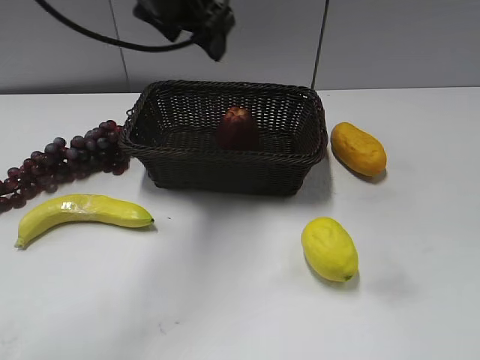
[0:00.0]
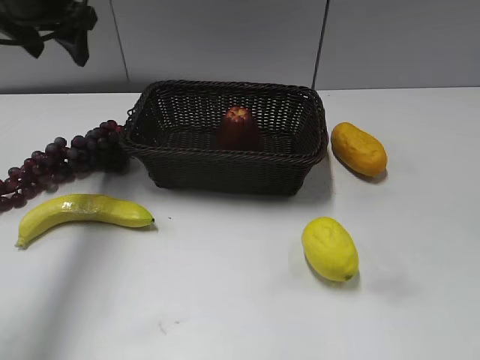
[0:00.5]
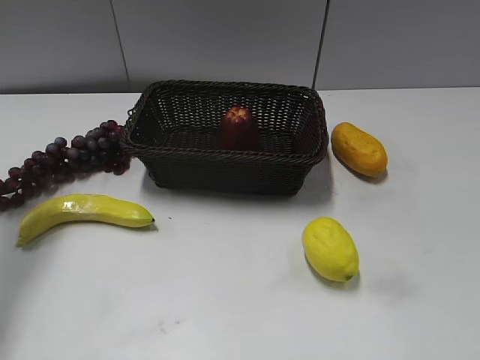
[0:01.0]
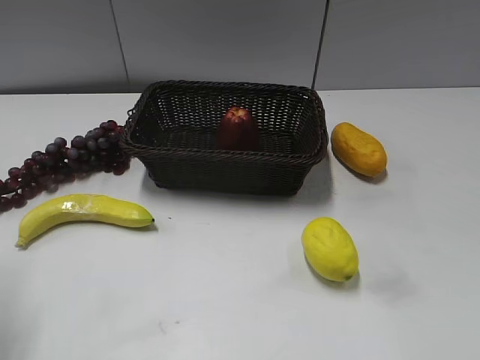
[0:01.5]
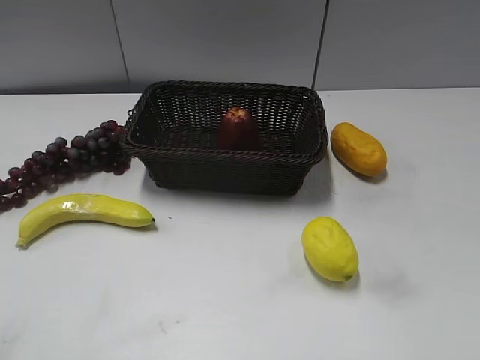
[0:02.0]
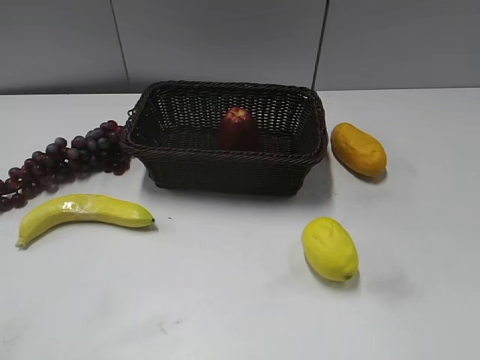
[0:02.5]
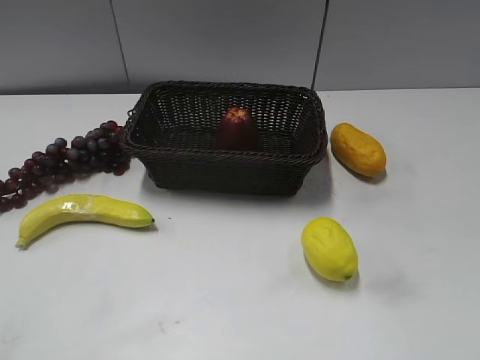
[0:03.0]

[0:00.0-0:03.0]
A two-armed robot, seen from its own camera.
0:00.0 to 0:01.5: The left gripper goes approximately 35 cm to the left and backward, and closes up.
0:01.5 to 0:03.0: The left gripper is displaced backward by approximately 20 cm, and closes its fingers.

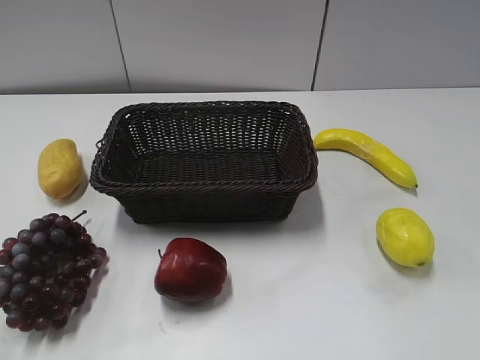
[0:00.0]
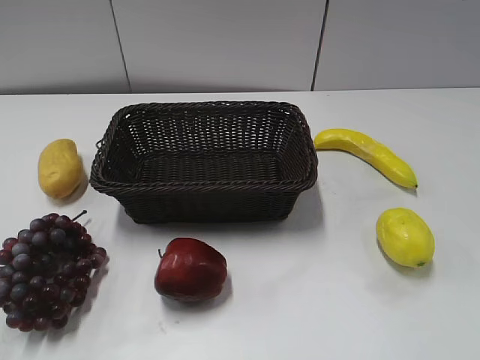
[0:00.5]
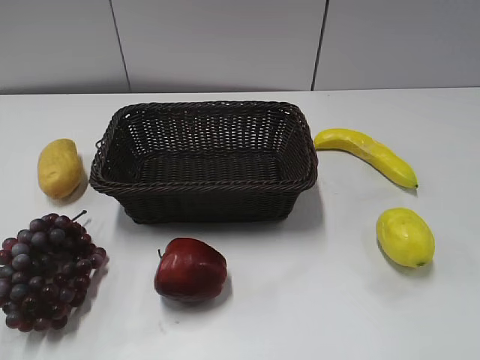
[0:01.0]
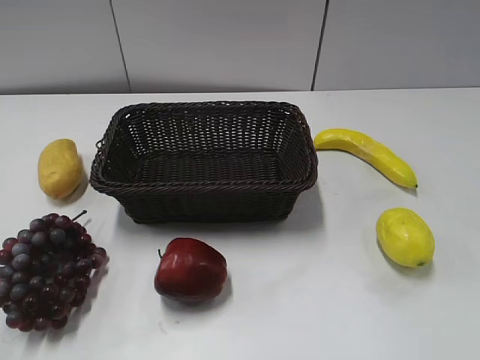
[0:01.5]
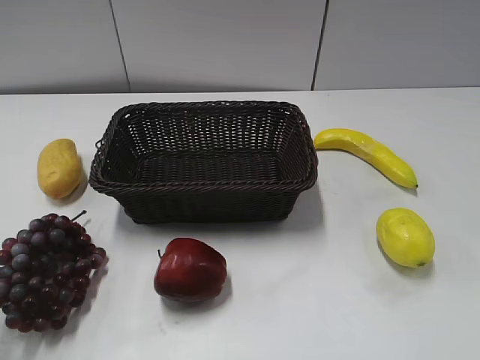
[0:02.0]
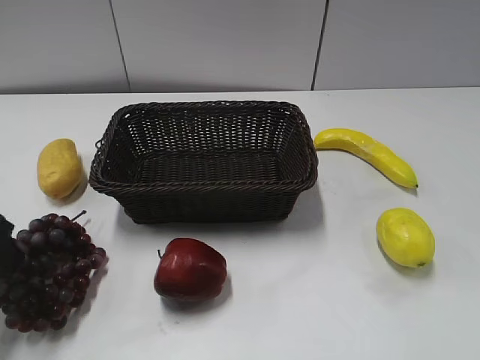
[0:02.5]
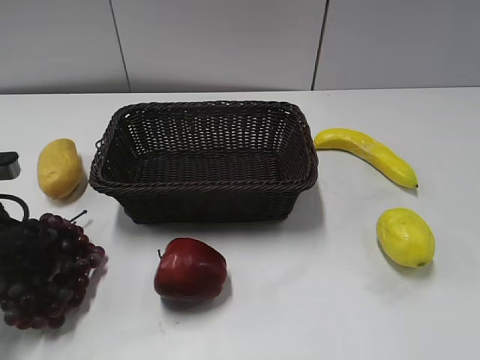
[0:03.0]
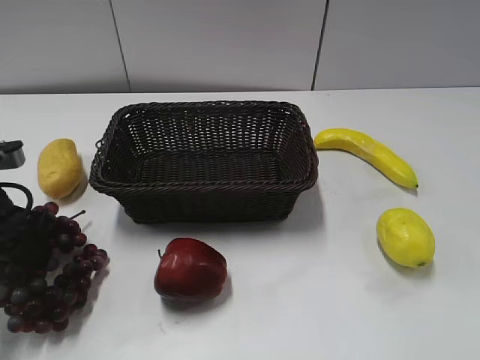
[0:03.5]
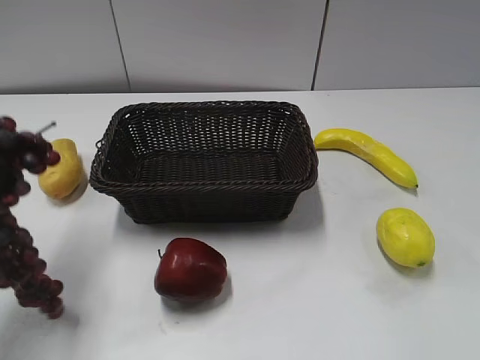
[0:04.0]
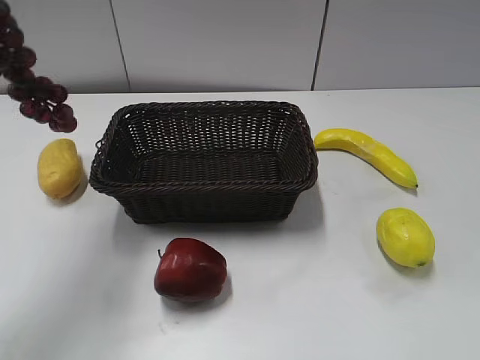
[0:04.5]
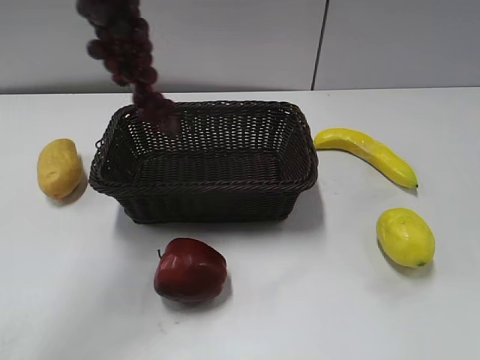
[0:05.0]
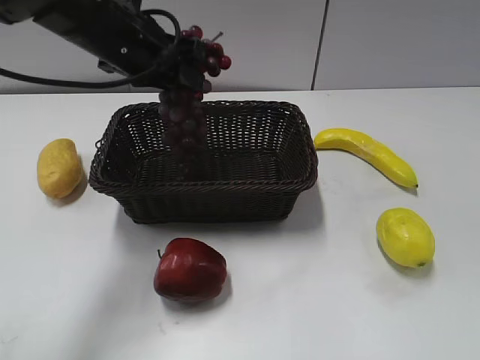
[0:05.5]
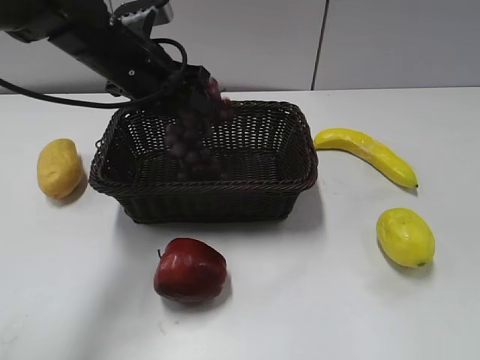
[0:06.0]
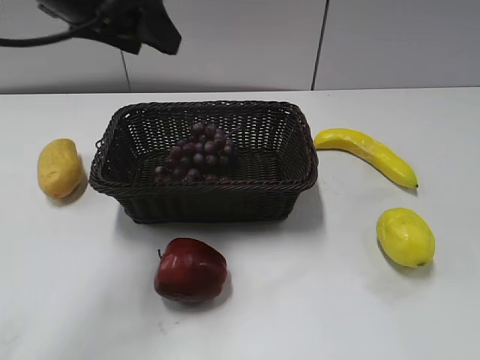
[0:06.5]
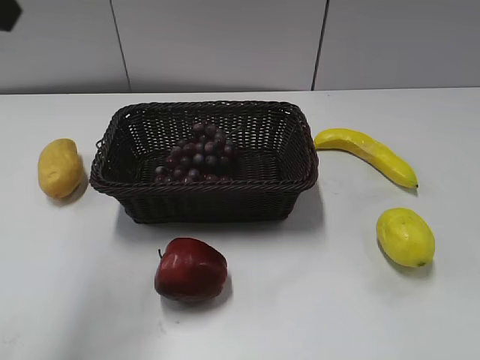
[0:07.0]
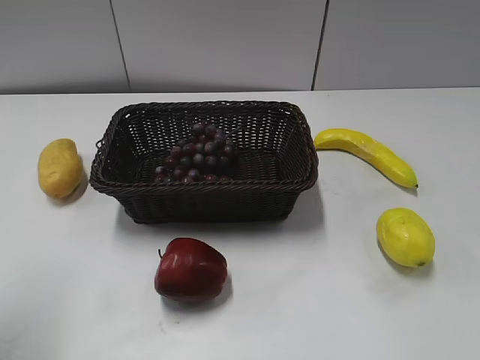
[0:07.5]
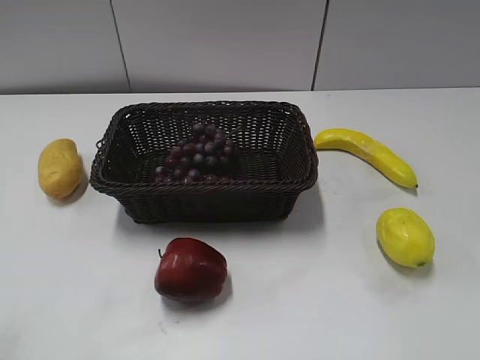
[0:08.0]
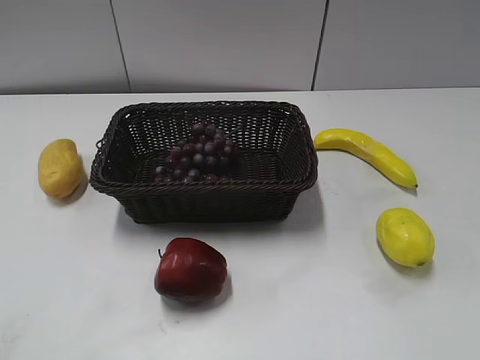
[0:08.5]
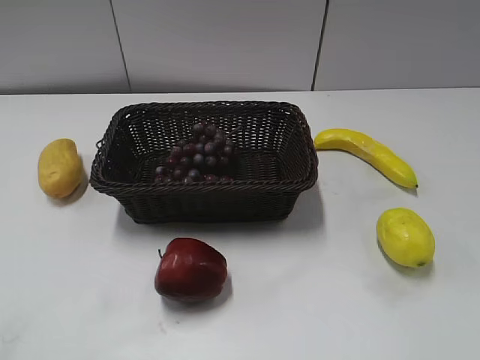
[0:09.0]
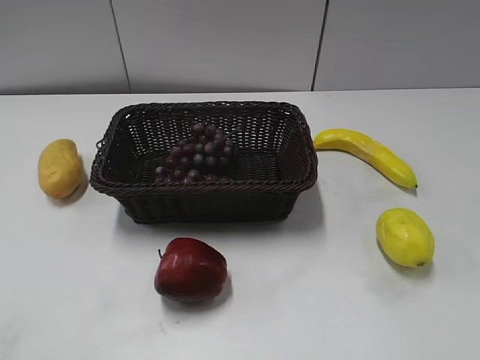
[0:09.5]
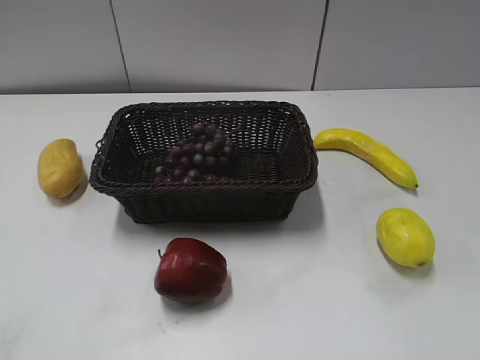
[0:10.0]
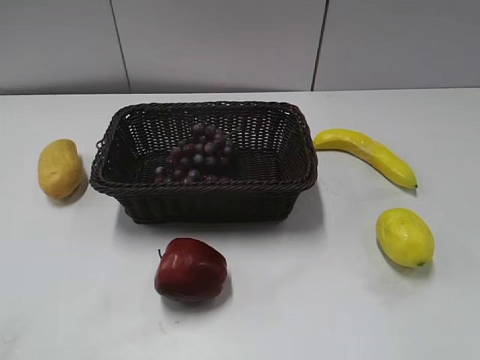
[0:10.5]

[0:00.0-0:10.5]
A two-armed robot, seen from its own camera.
Step, 0:02.5 to 0:03.5: Grasp the grape with left gripper.
Step, 0:04.0 to 0:06.0: Place the grape in the basket with left gripper.
0:02.0 to 0:04.0: The left gripper goes roughly 5 cm forward, reaches some 10 cm downward, then returns, and closes.
0:04.0 to 0:06.5: The left gripper swings up and down, some 20 cm each way, with 2 reversals, and opens.
0:06.5 to 0:08.5: The left gripper shifts approximately 30 cm backward and to the left.

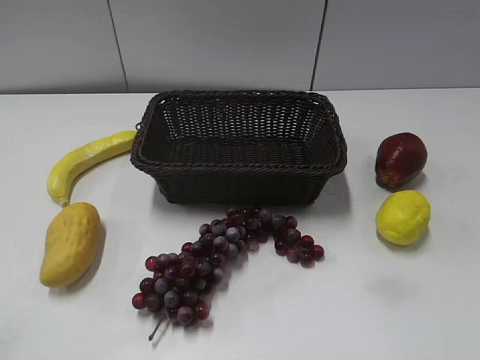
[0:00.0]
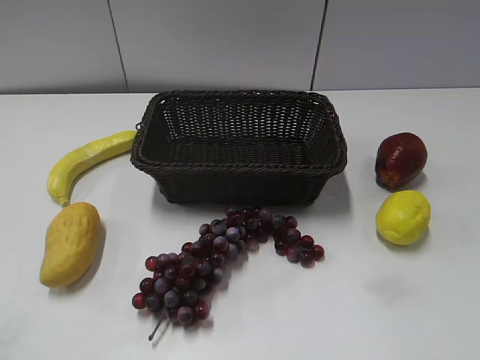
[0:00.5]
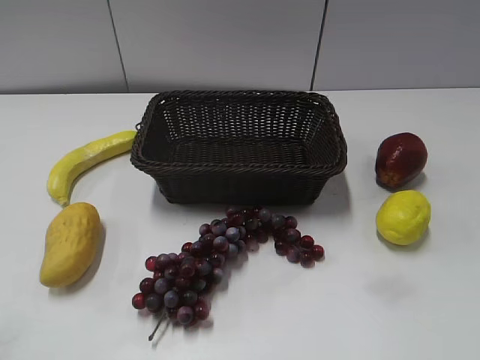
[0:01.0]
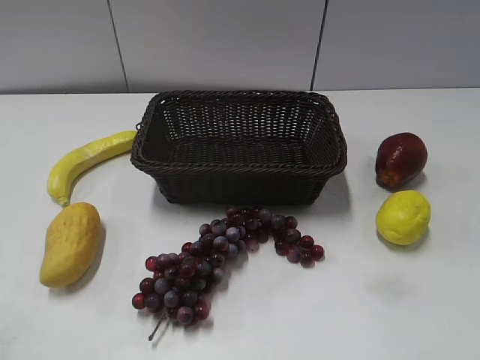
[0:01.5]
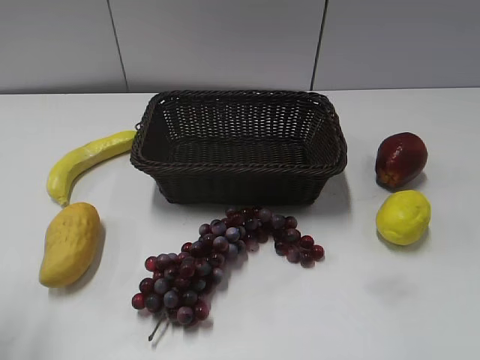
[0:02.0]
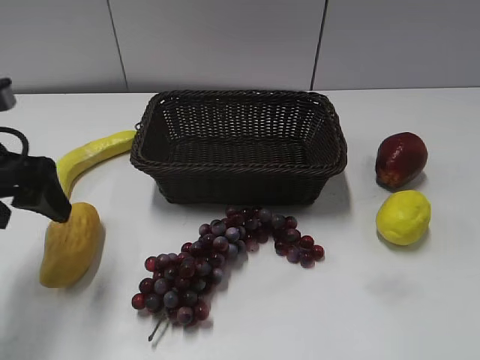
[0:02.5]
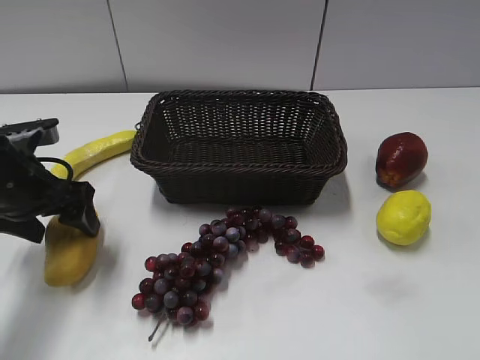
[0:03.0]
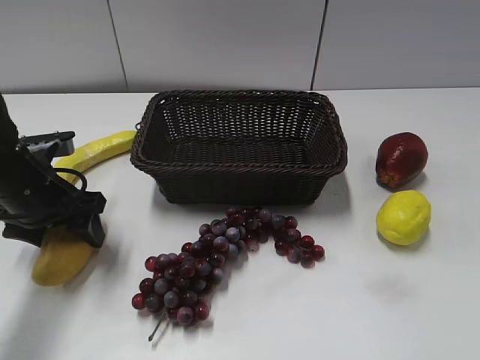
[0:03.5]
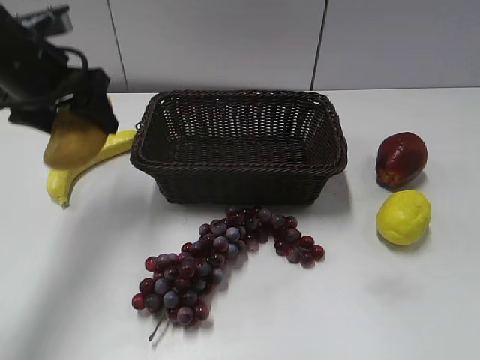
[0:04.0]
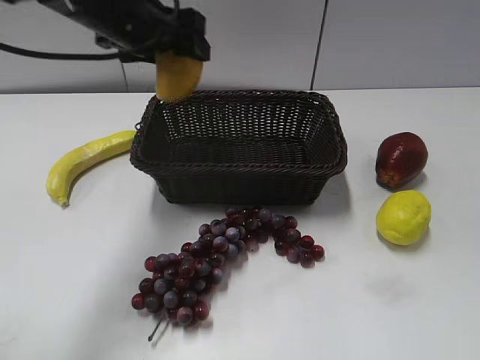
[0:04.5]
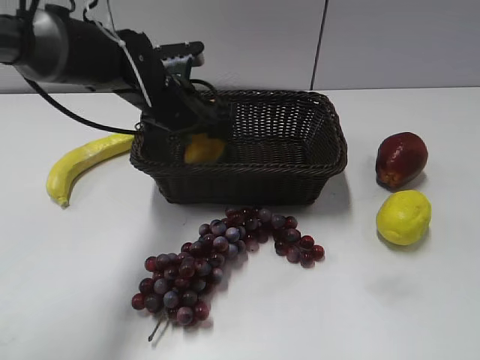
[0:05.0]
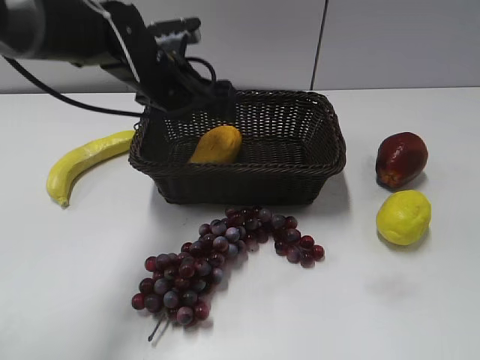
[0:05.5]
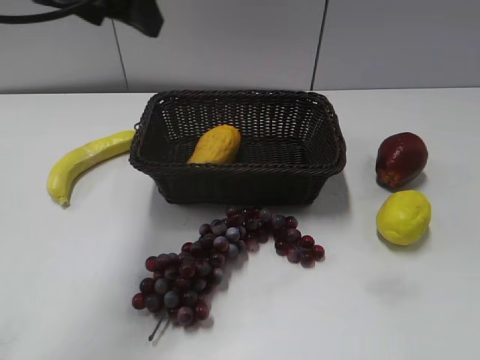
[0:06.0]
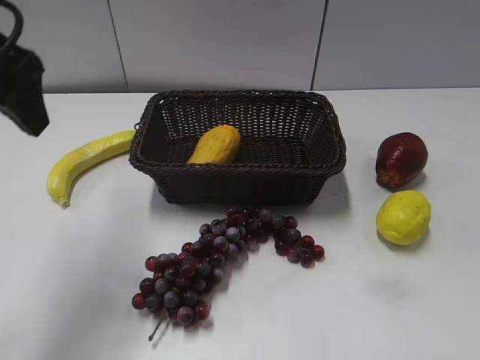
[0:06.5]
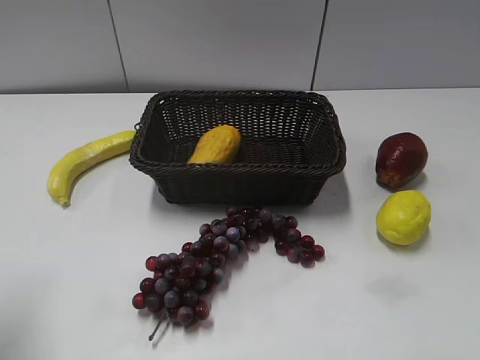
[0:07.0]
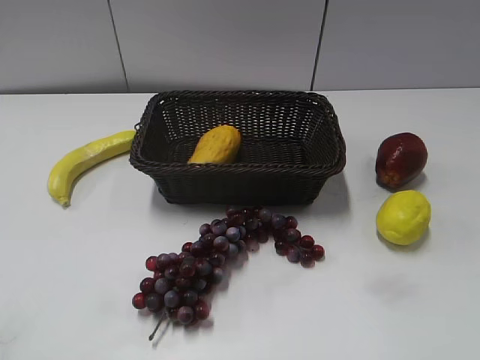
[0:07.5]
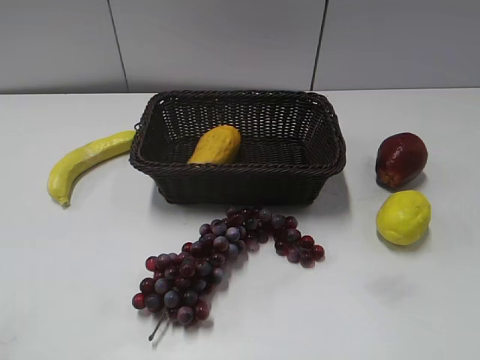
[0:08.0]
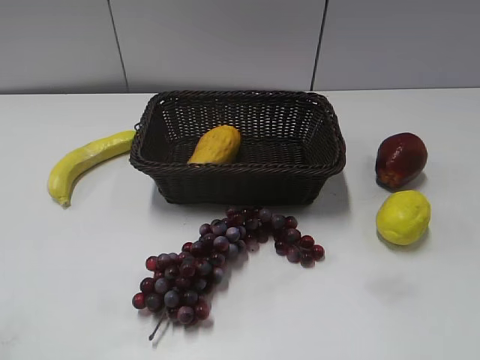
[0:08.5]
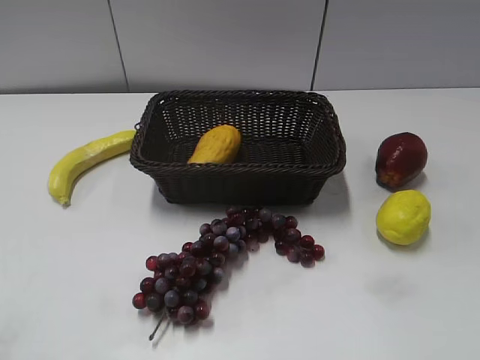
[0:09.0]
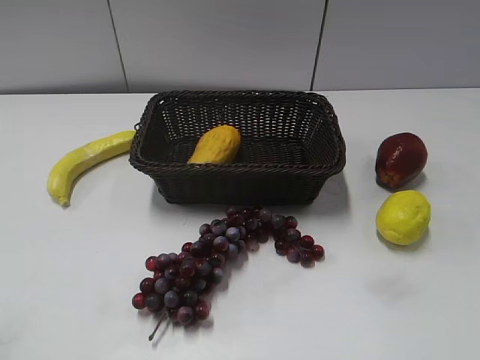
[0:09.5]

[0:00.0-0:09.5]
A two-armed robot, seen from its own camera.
Step, 0:02.5 to 0:03.0: Grasp the mango with left gripper.
Step, 0:04.0 to 0:05.0: Place the mango in the basket with left gripper.
0:02.0 to 0:04.0: The left gripper goes roughly 20 cm forward and to the right, and closes its fingers.
0:04.0 to 0:05.5: The left gripper moves to the right, about 10 cm, and opens.
0:05.5 to 0:07.5: The left gripper heads backward and to the left, covering roughly 40 cm, and closes up.
